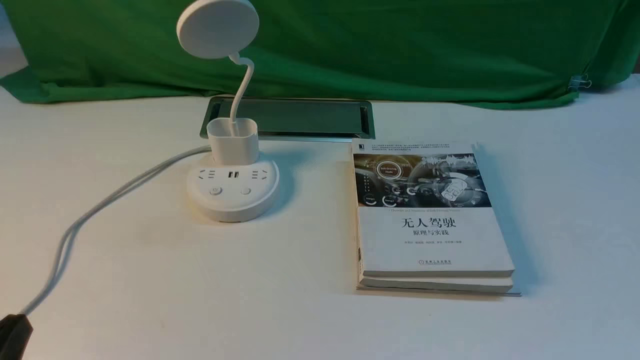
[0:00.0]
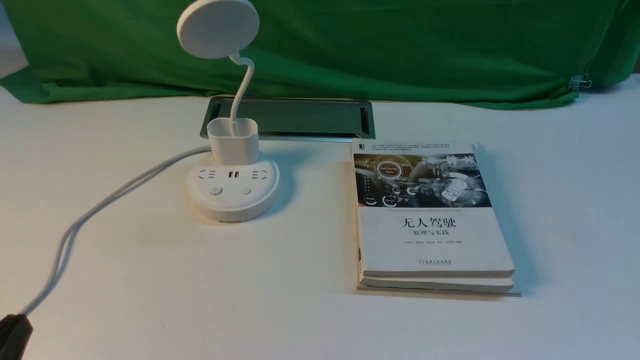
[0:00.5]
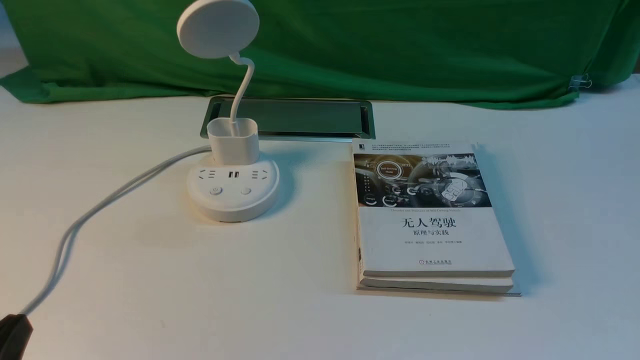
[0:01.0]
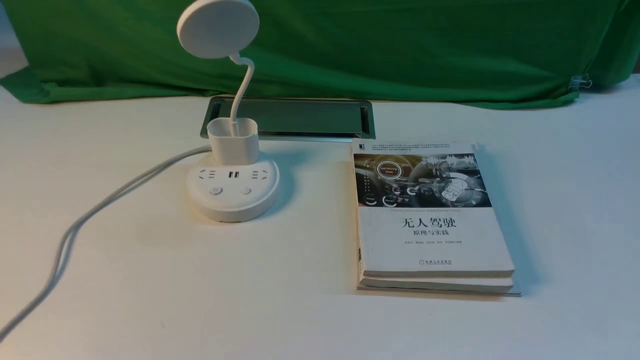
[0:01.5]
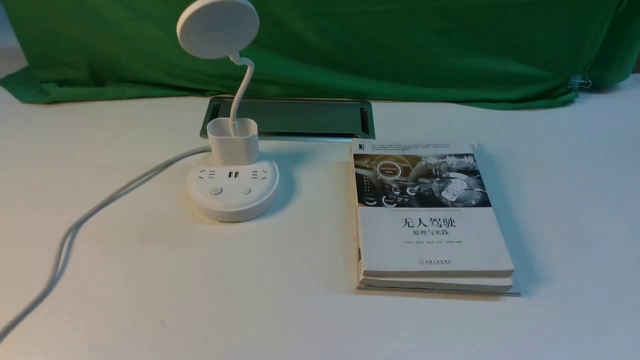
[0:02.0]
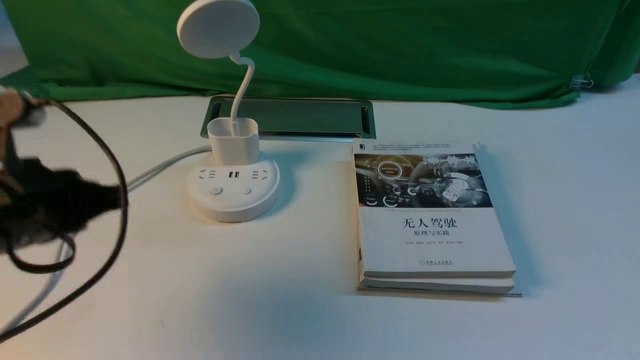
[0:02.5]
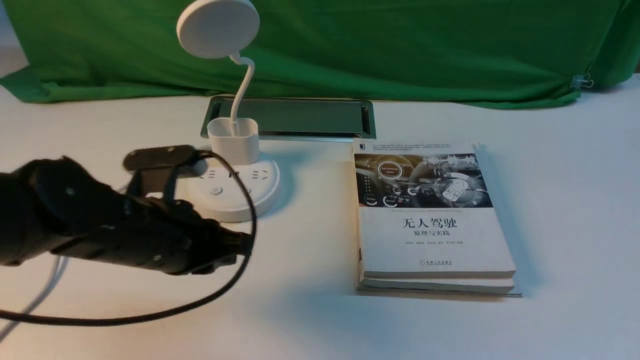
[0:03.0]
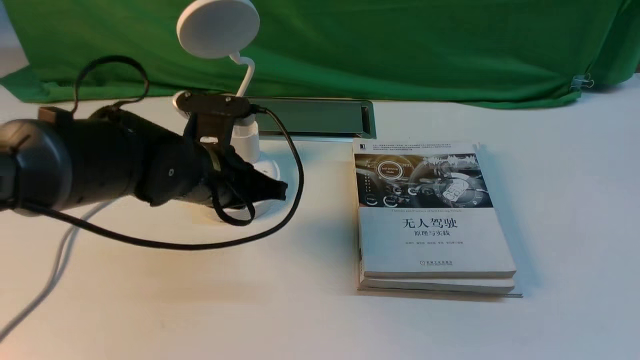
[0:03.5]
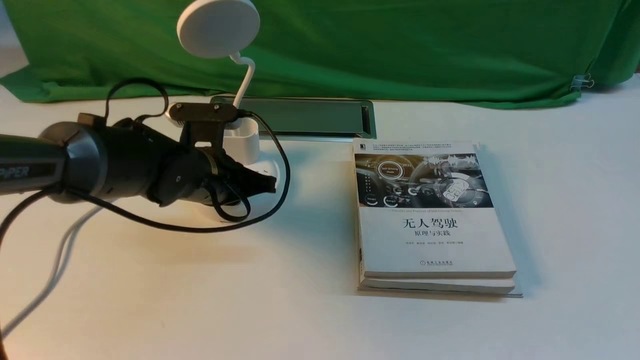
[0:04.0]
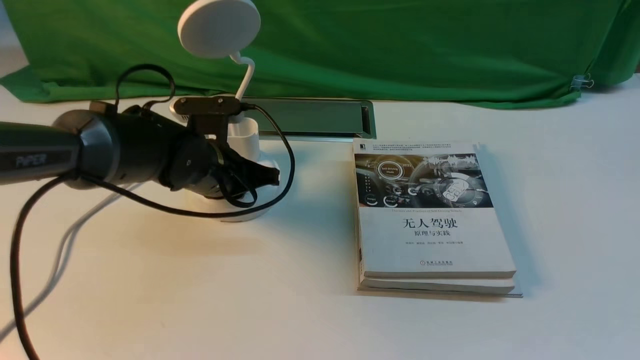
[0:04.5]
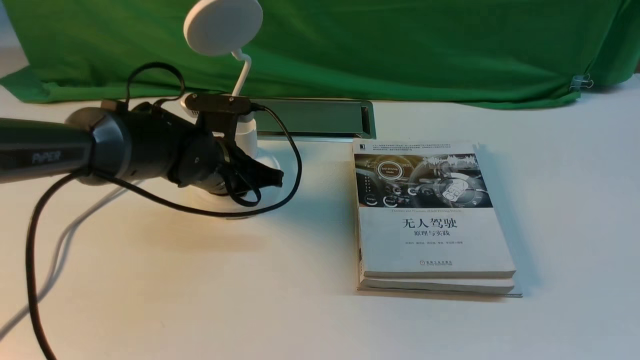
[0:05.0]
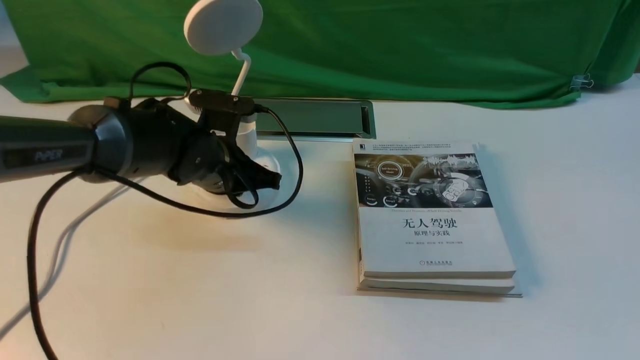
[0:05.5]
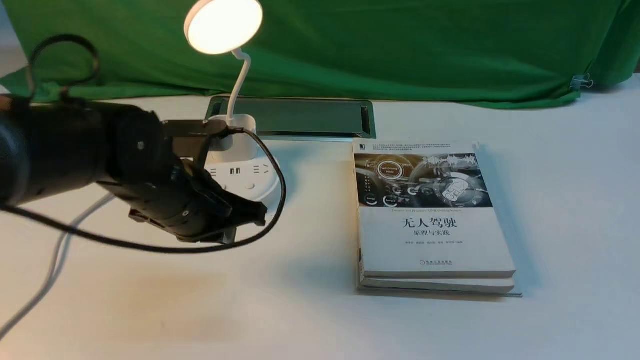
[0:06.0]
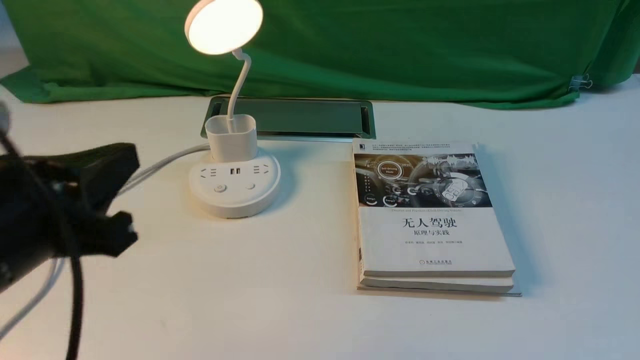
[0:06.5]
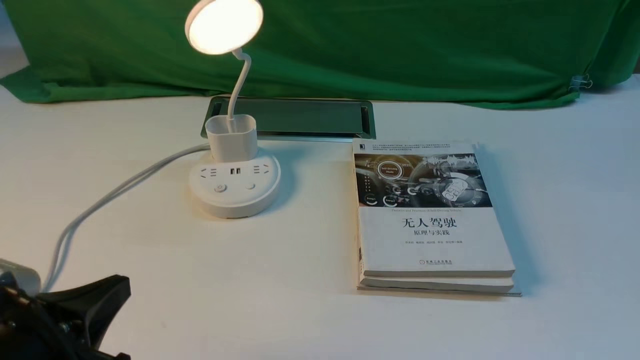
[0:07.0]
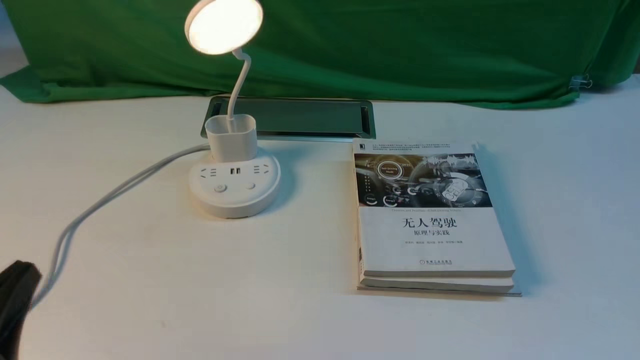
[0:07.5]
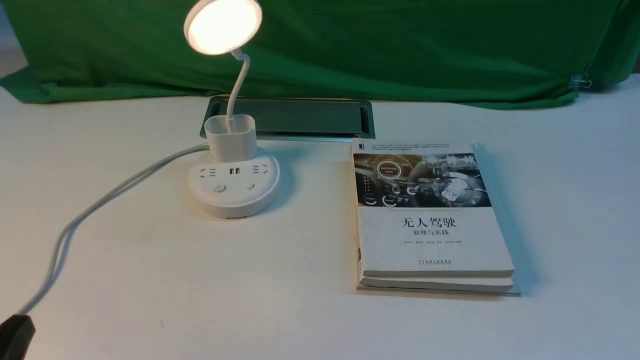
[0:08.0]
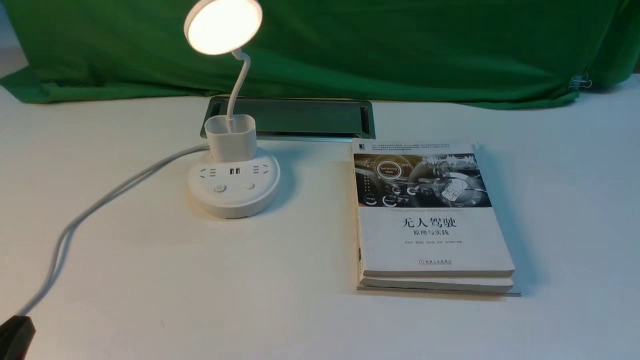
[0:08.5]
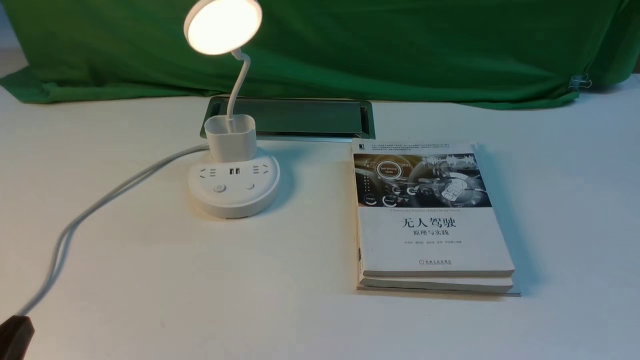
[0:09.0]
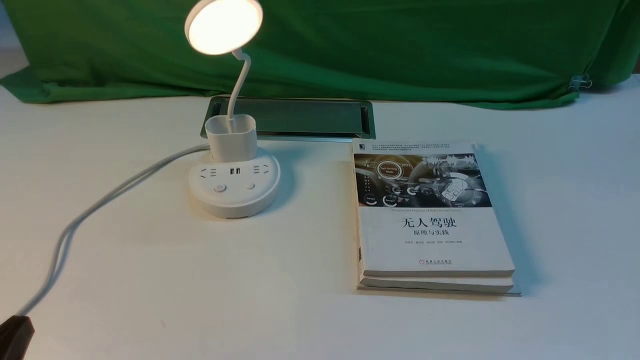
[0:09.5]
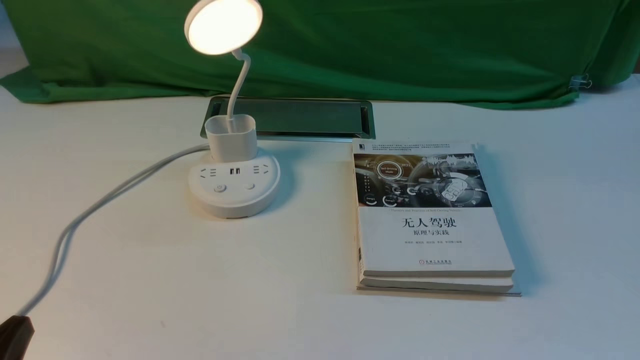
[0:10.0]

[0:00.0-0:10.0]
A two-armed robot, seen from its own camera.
Step, 0:00.0 to 0:06.0: use the left arm to press the button switch on the lamp holder.
0:02.0 to 0:04.0: The left gripper is displaced forward, downward and to the right by approximately 40 cm.
0:04.0 to 0:06.0: The left gripper moves backward and upward, about 10 cm.
0:06.0 to 0:08.0: The left gripper heads backward and to the left, covering some 25 cm.
0:08.0 to 0:10.0: Both grippers stay about where they are.
